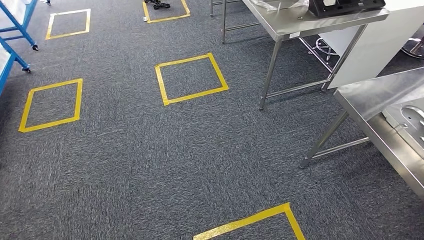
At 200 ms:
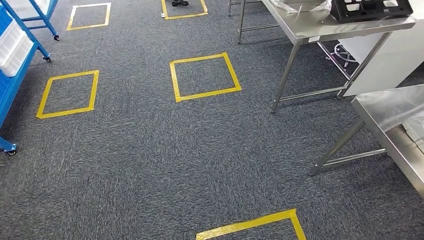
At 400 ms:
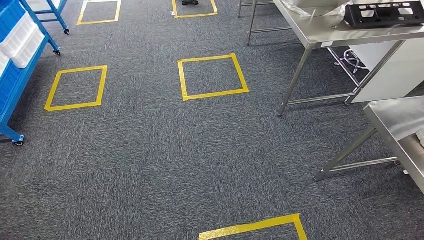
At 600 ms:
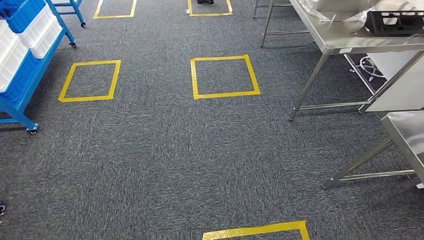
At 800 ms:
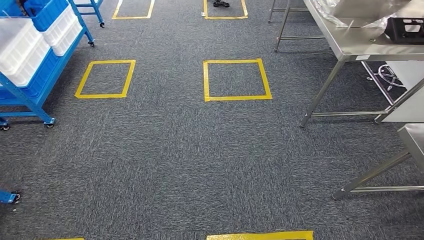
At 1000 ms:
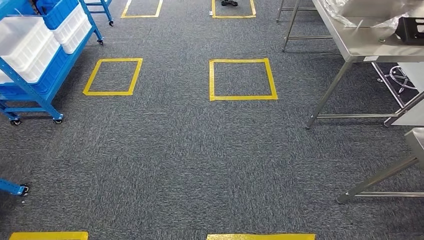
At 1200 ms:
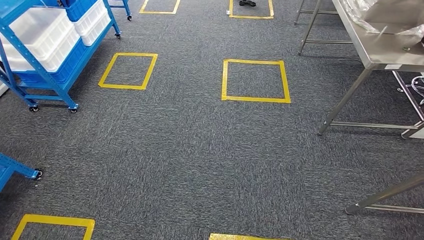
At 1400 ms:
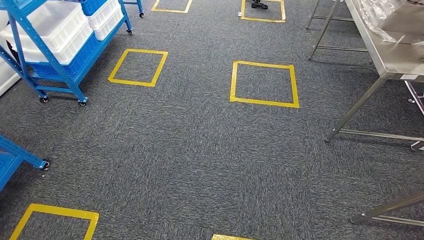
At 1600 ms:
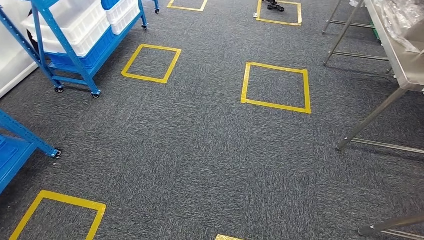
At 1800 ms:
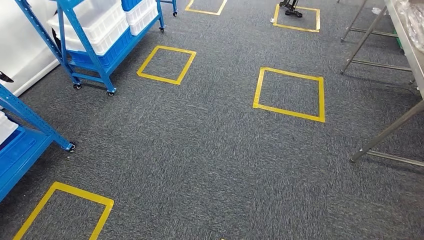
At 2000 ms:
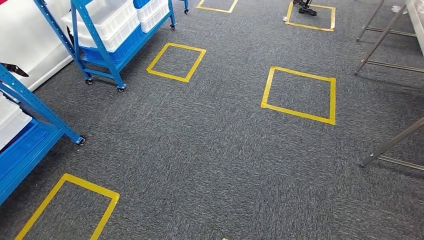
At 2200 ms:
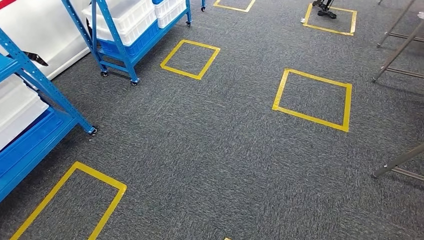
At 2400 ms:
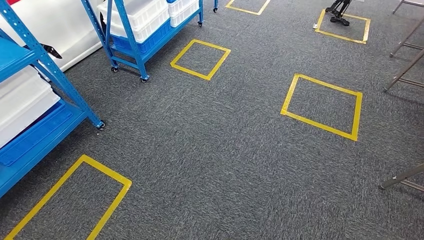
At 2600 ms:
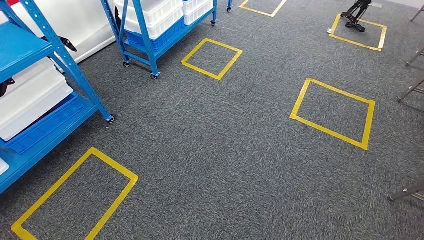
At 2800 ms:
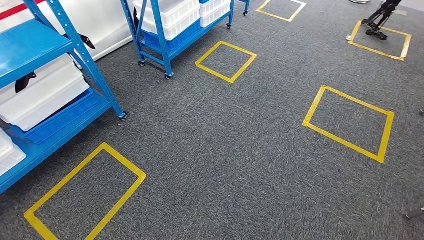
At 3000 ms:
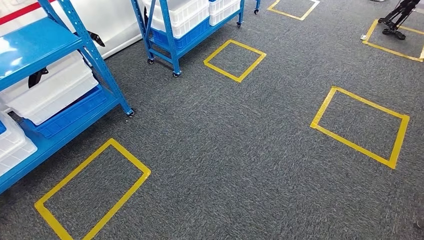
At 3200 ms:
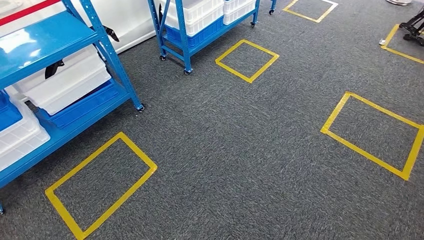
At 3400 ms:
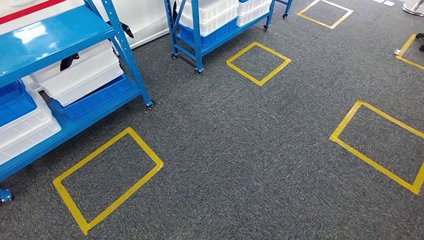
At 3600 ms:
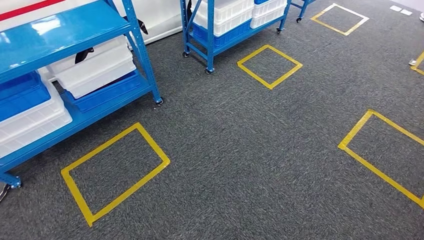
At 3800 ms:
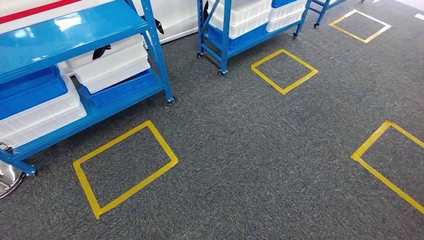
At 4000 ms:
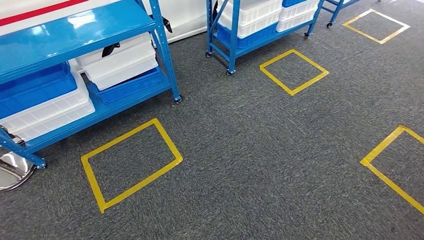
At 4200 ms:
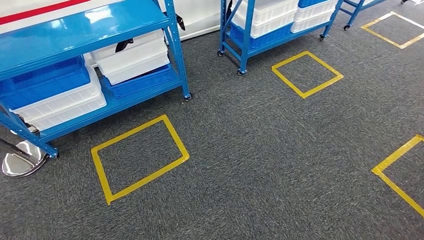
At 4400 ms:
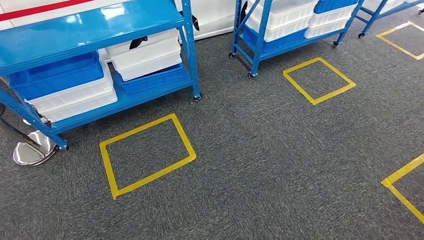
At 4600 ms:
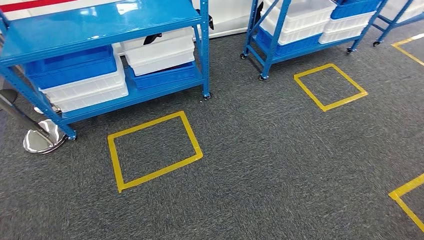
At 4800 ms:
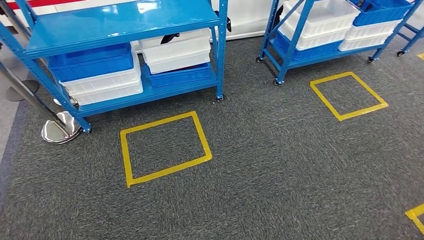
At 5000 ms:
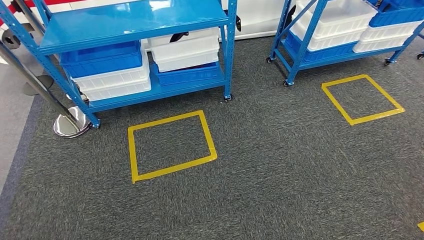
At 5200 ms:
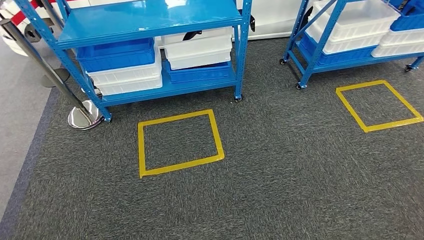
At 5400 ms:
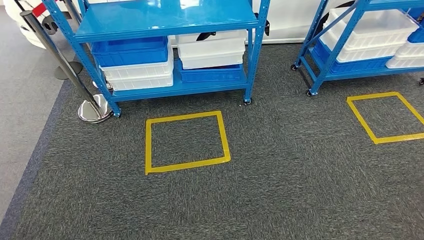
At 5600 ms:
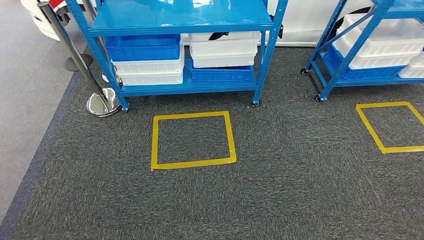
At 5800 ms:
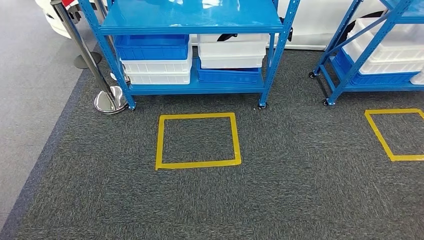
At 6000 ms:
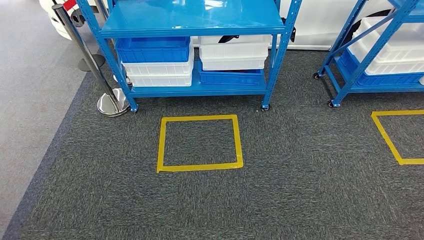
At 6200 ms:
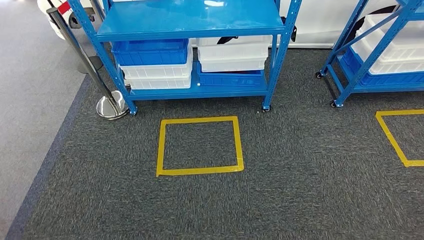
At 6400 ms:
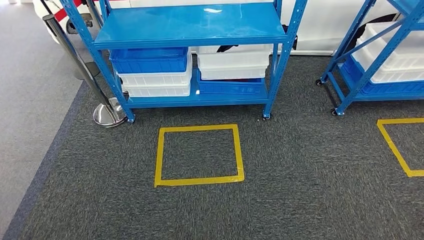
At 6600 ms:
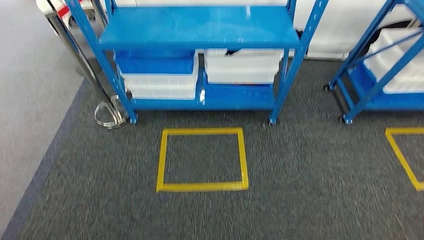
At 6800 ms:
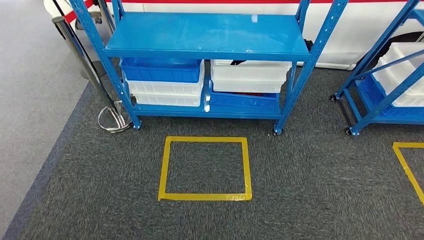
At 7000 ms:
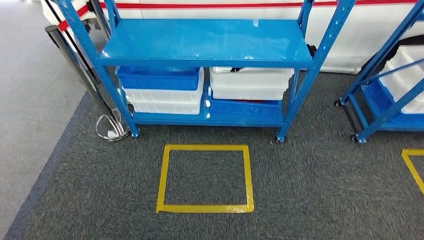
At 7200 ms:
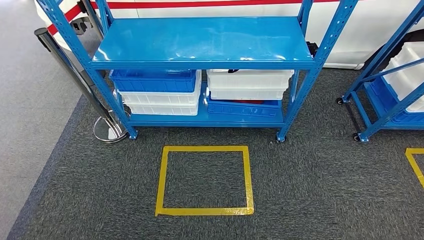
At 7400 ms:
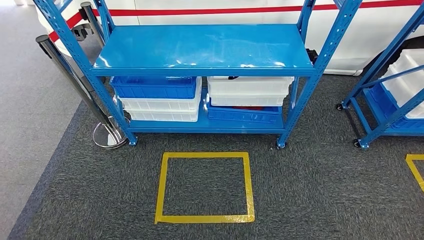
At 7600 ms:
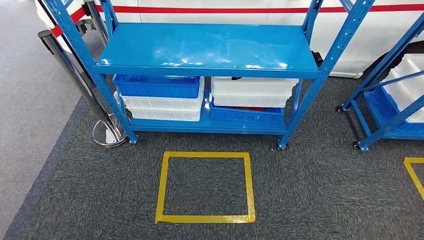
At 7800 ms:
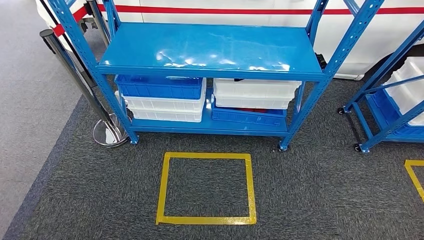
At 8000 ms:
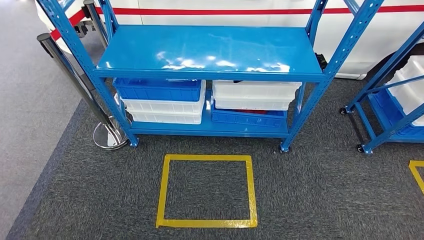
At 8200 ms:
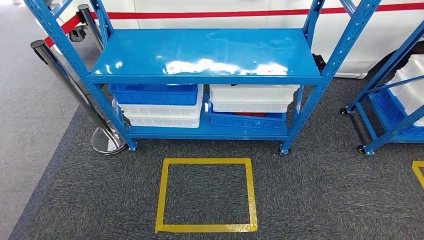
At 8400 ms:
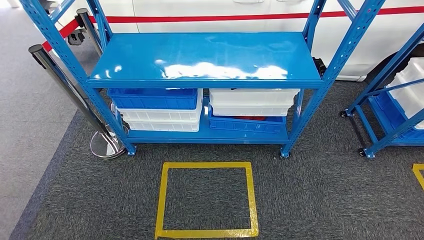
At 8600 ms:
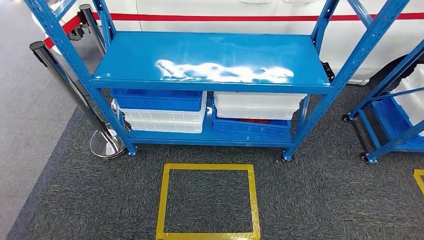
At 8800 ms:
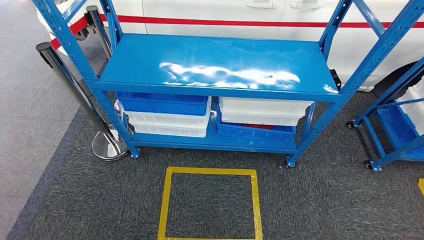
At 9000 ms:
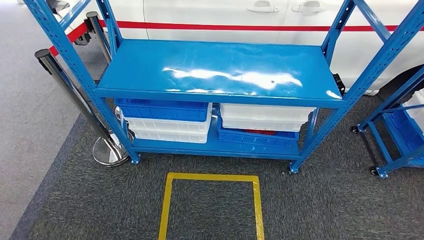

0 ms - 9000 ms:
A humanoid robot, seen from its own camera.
Step, 0 ms - 9000 ms: Return to the initial position at the shelf.
